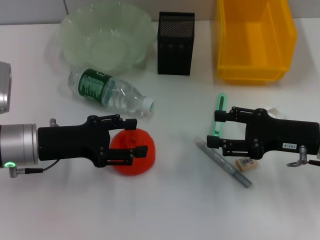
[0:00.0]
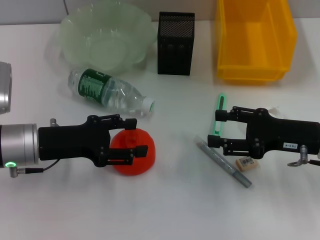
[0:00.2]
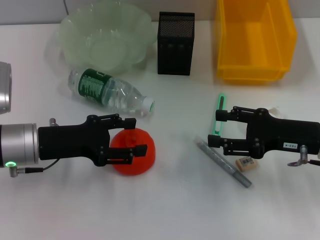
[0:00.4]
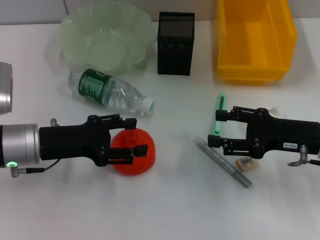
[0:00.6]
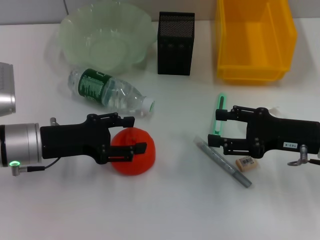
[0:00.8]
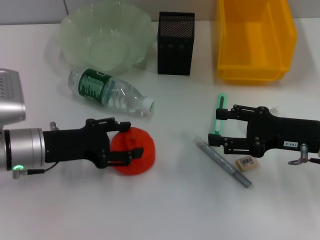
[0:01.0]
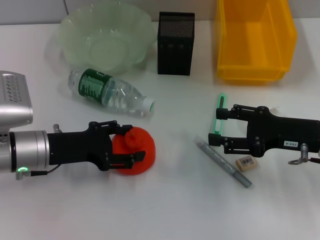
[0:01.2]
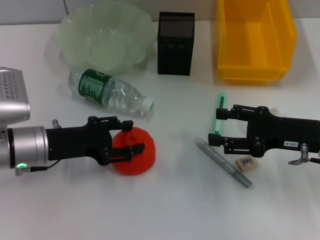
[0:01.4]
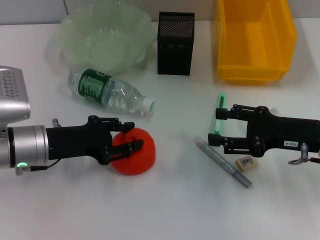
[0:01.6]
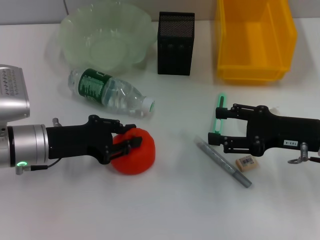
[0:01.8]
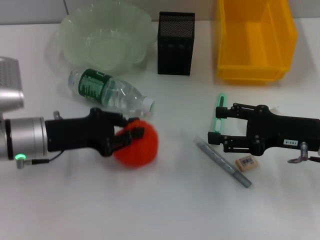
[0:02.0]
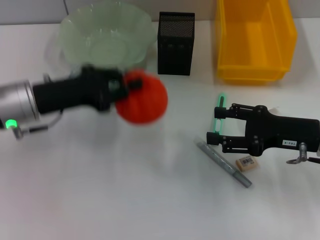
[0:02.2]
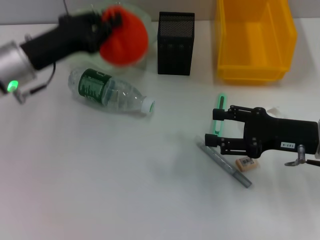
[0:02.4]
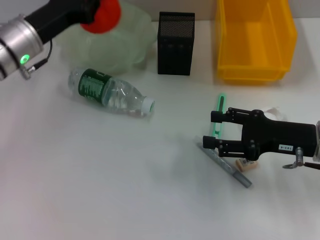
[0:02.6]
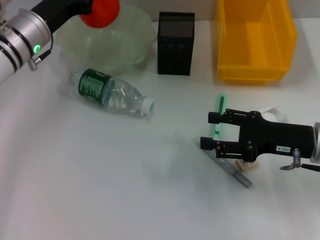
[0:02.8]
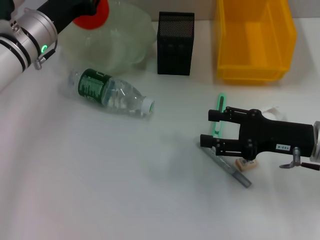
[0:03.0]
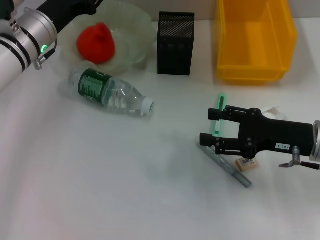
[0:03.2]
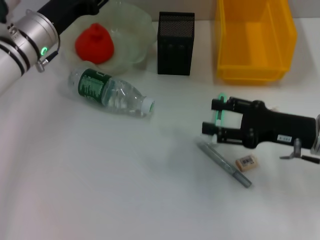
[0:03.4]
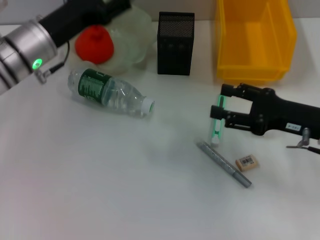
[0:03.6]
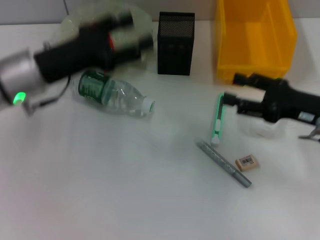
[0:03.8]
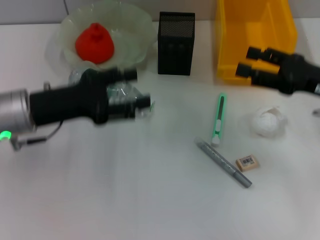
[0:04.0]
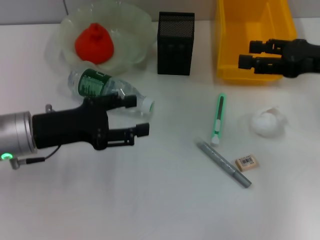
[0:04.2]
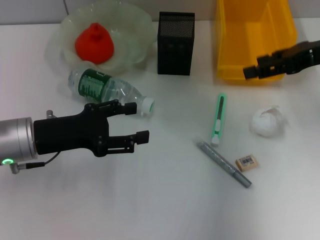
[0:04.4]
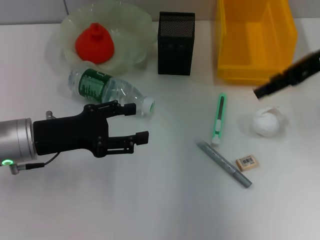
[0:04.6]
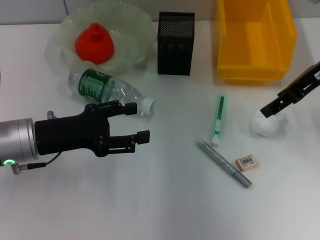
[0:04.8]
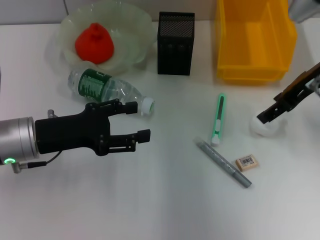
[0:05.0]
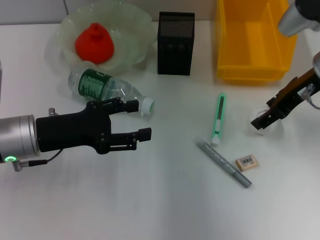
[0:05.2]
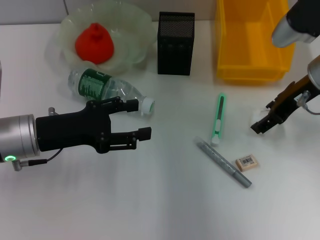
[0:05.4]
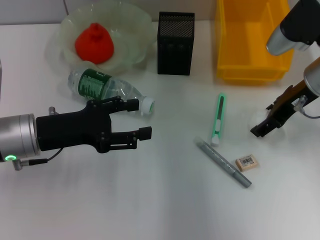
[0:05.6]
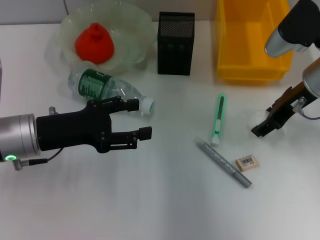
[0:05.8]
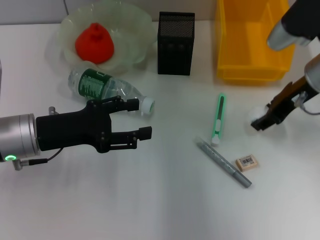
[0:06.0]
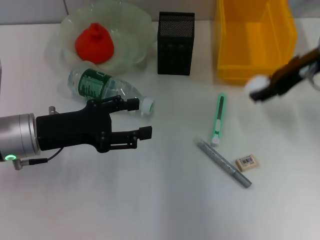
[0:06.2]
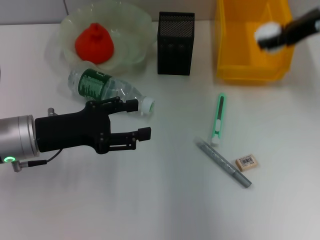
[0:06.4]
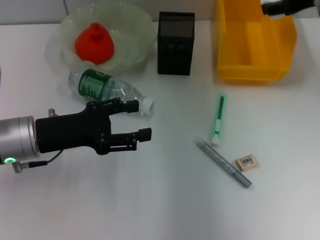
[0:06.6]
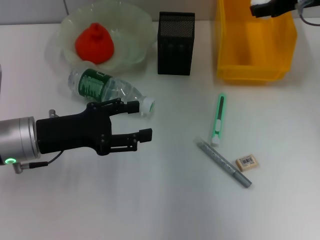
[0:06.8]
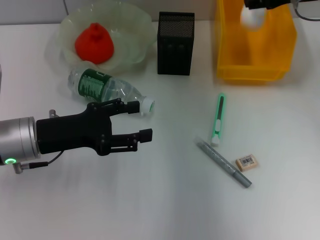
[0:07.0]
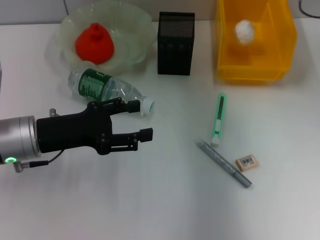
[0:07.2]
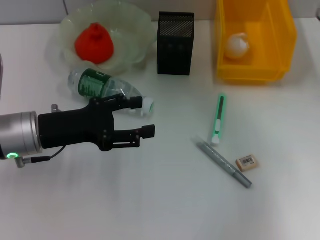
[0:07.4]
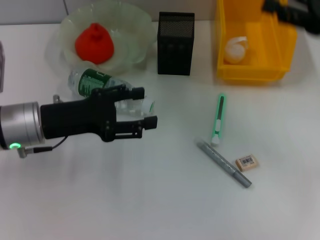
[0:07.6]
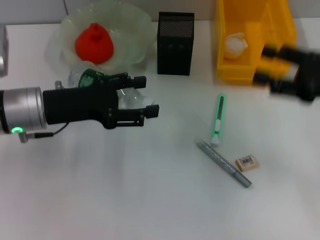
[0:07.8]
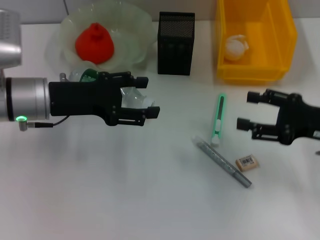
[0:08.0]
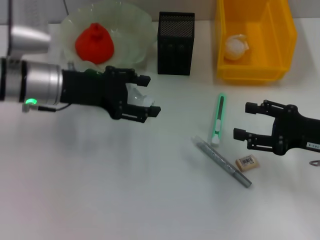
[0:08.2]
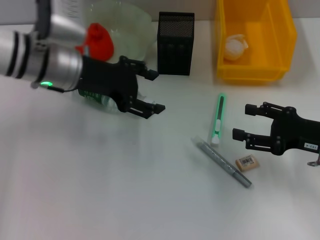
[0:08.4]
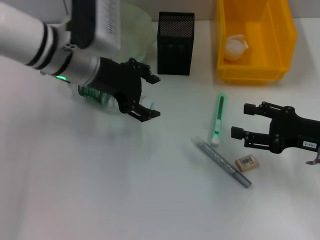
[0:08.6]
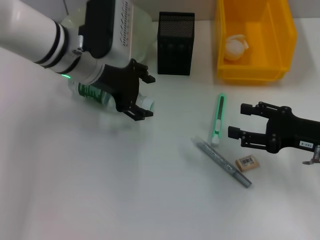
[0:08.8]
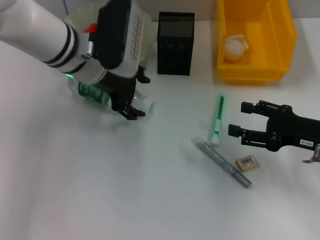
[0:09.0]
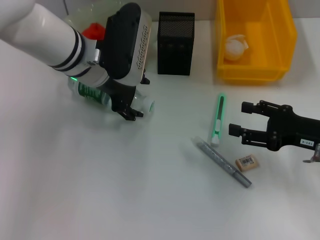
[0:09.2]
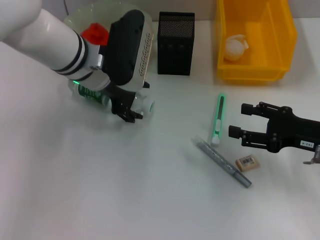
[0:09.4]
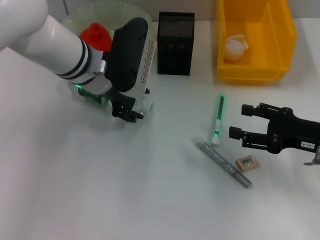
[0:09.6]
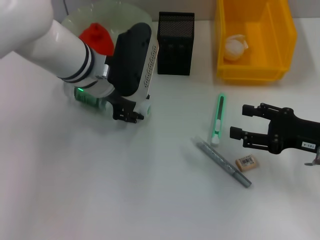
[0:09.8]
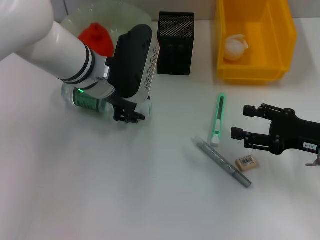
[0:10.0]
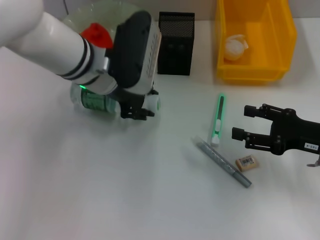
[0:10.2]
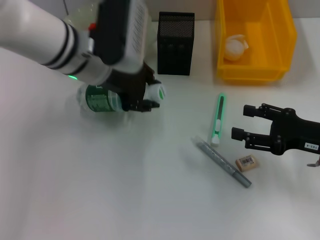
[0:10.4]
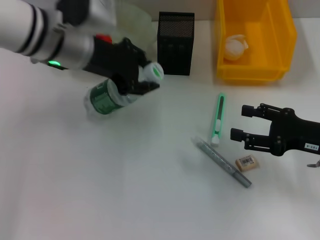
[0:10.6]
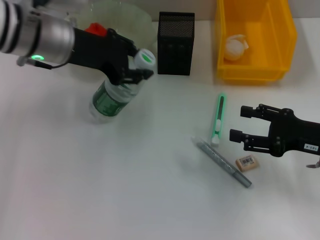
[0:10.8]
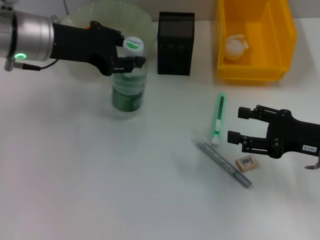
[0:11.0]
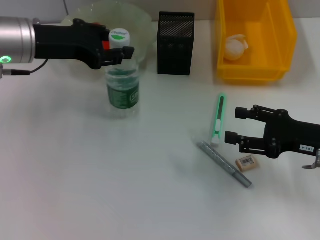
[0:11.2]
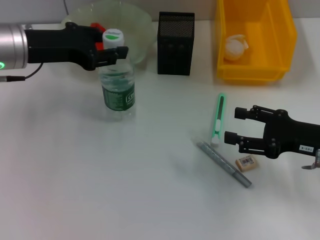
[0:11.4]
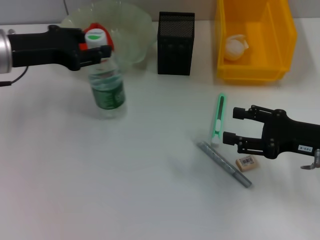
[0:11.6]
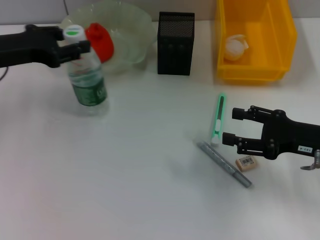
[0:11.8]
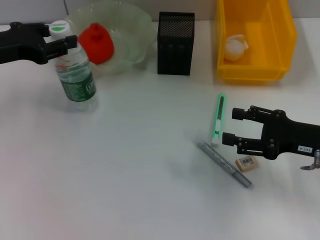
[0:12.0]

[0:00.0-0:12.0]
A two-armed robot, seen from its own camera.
Step, 0:00.0 to 0:01.6: Grab the orange with the left hand.
Step, 0:01.8 to 0:03.2: Place the orange into the fruit bowl with the left hand.
Step, 0:03.6 to 0:05.8: Grab the paper ball with the right hand.
Step, 0:06.0 to 0:07.2: Place the paper ball into the trash can with the right hand.
Step, 0:07.4 to 0:09.8: Grab the water bottle with the left hand.
0:00.0 to 0:01.6: The grippers move only a little.
0:01.6 to 0:03.0: The left gripper goes some 15 cm forward and upward, and closes up.
0:03.0 to 0:04.4: The left gripper travels backward by roughly 15 cm, and opens up; the right gripper heads upward and forward, covering some 15 cm.
0:04.4 to 0:06.0: The right gripper shifts approximately 10 cm to the left and downward.
0:06.0 to 0:07.6: The right gripper shifts roughly 10 cm to the right.
0:07.6 to 0:09.0: The left gripper goes about 15 cm to the right, forward and upward. Meanwhile the right gripper heads downward and backward, covering about 15 cm.
0:09.0 to 0:10.4: The left gripper closes.
0:10.4 to 0:12.0: The left gripper is displaced to the left by approximately 15 cm.

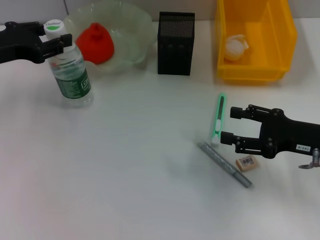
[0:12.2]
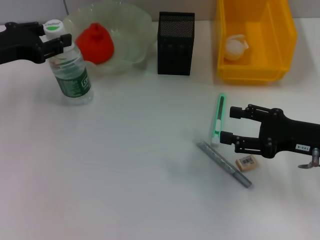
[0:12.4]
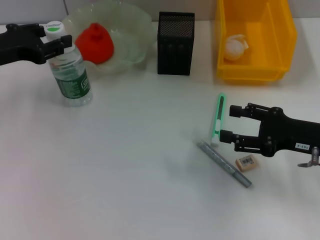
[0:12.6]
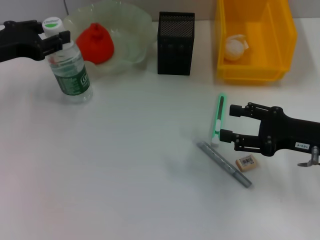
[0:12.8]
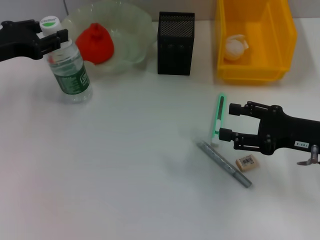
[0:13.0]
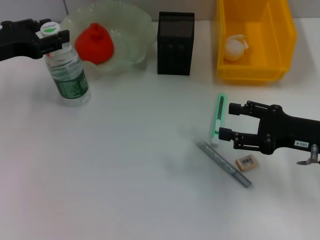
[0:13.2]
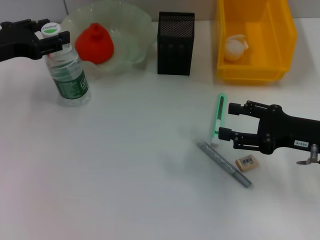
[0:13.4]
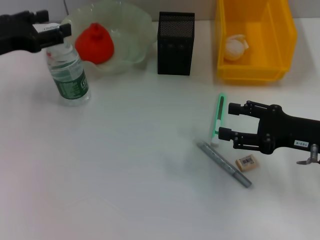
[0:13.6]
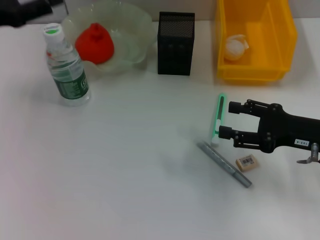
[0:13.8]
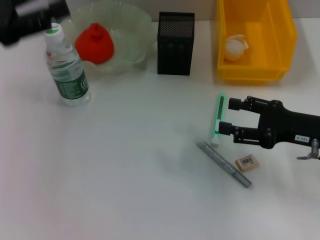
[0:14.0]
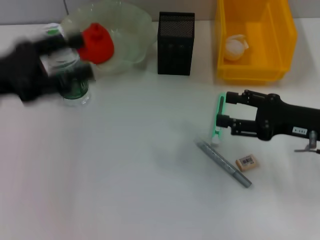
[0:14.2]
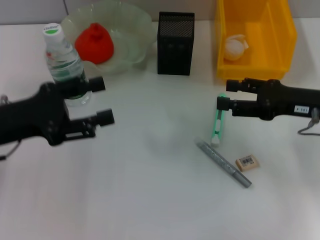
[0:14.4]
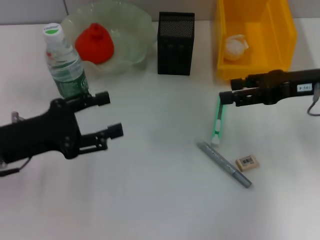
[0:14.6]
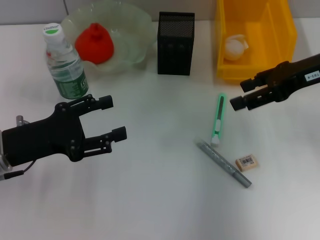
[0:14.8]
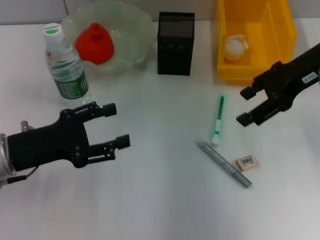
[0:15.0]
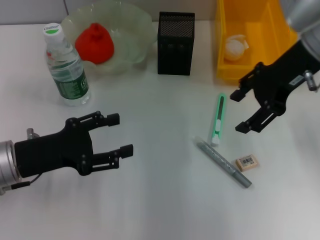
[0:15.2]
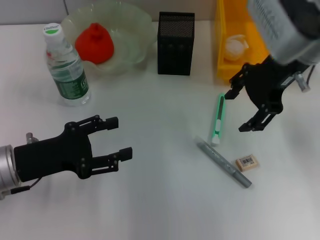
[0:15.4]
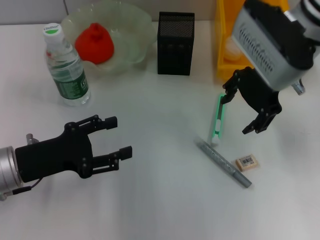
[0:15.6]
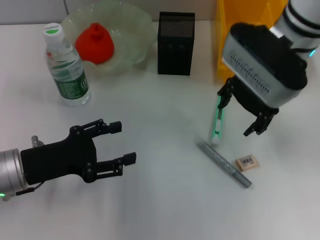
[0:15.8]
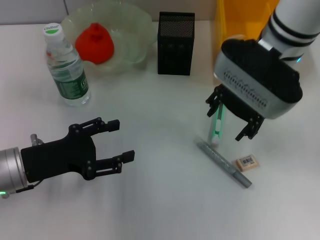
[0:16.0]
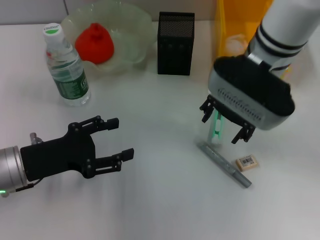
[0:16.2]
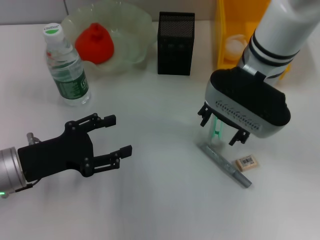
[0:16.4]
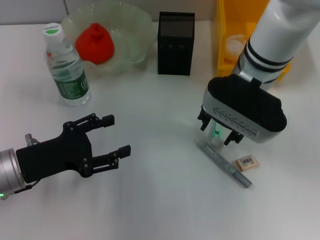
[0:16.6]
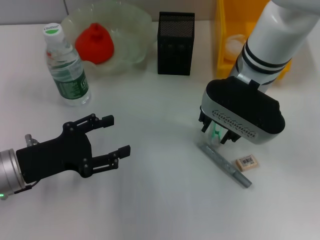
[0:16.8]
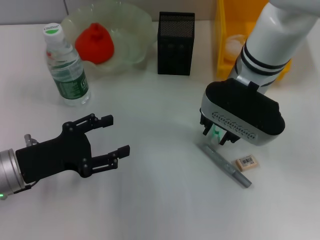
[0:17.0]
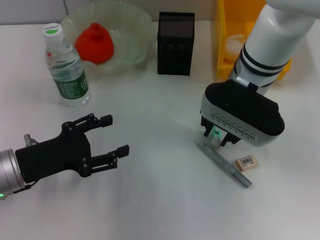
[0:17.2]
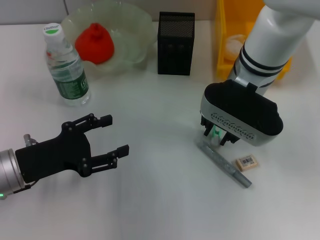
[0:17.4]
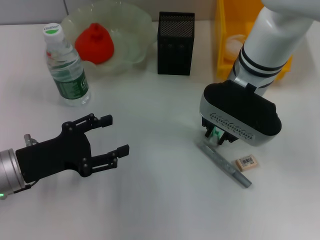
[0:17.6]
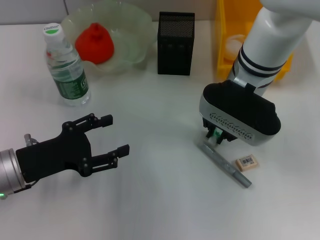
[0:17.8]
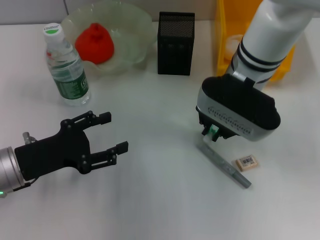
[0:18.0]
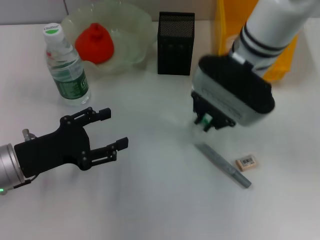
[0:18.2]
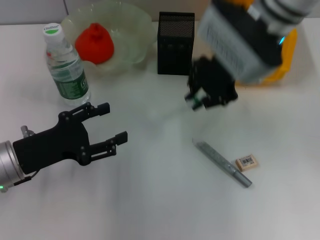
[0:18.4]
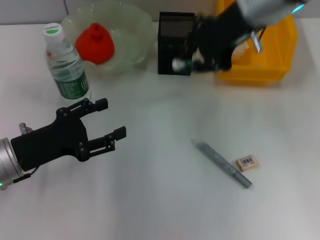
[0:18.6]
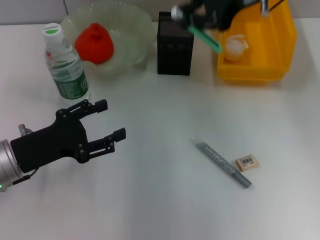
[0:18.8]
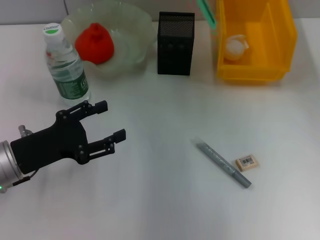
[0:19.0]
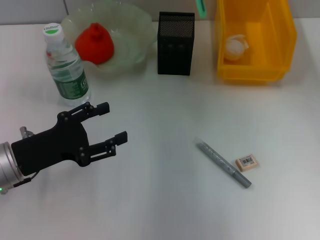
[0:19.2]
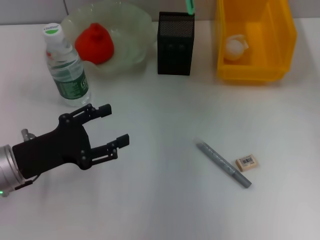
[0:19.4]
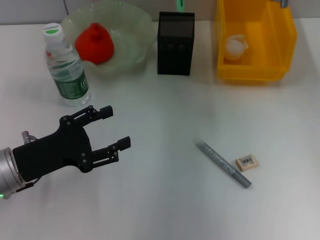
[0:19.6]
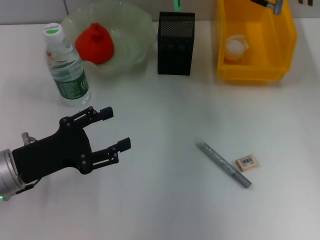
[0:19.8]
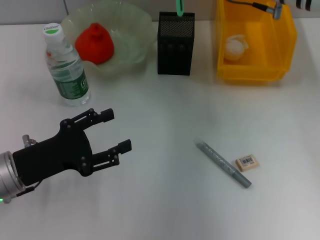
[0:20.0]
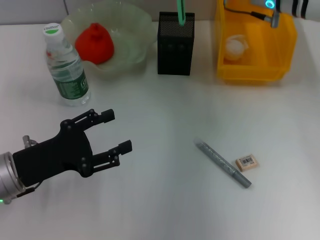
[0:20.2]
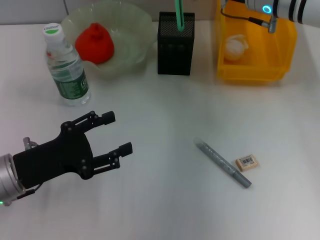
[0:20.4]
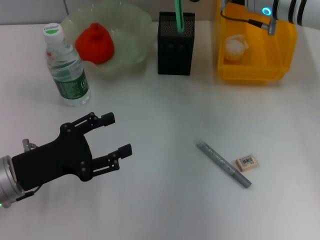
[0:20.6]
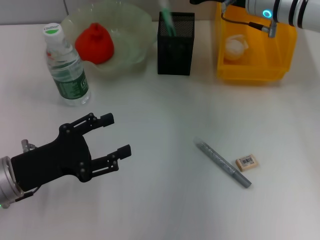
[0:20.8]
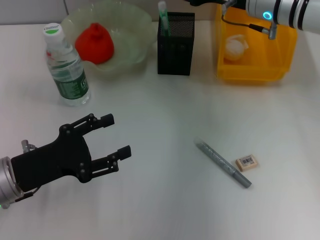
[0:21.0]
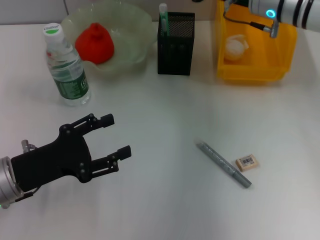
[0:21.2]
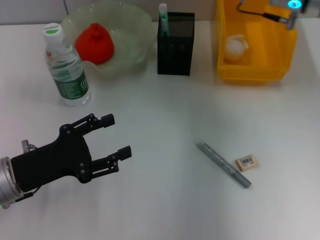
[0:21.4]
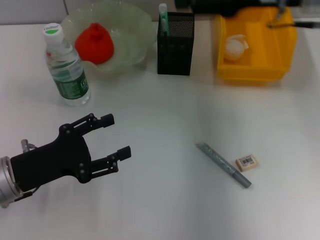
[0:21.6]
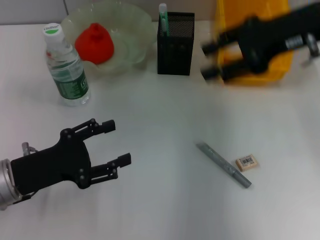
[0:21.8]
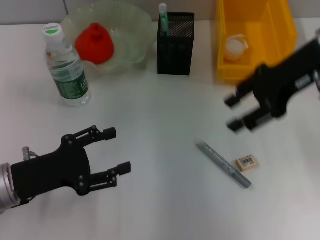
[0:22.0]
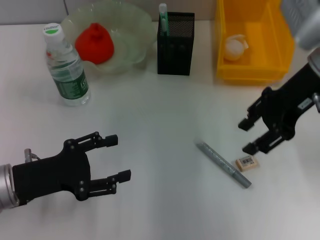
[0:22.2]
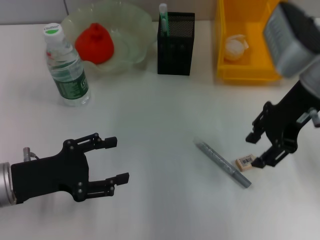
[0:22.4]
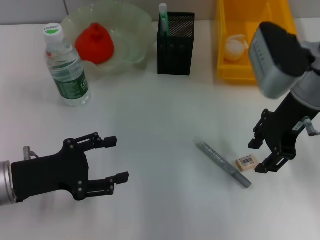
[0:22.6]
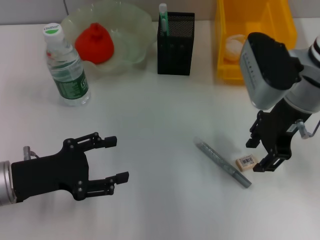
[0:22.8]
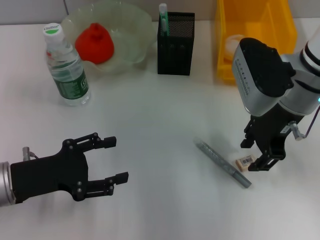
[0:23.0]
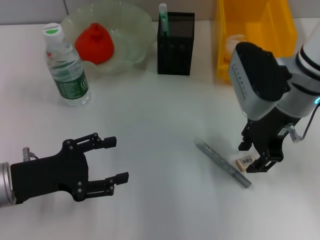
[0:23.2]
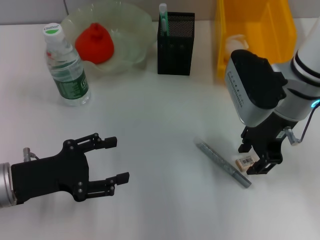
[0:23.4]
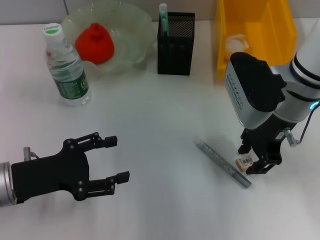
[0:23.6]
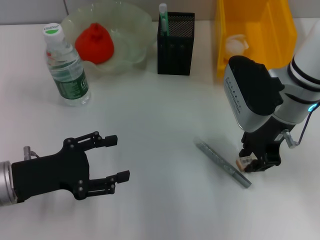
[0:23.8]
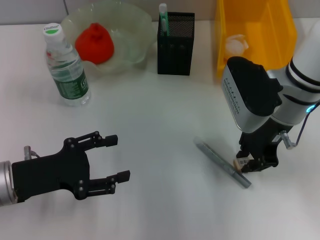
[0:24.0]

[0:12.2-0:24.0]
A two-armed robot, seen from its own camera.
Step, 0:14.0 to 0:17.8: Grab the blue utility knife with the right hand.
Step, 0:18.0 to 0:21.0: Place the blue utility knife into the pen holder with the right hand.
Step, 0:21.2 to 0:23.8: Grab the eraser with the right hand.
0:12.2 to 0:13.6: The left gripper opens up.
0:13.6 to 0:15.2: The right gripper moves upward, forward and to the left, about 20 cm, while the left gripper travels backward and downward by roughly 15 cm.
0:15.2 to 0:16.6: The right gripper heads to the left and downward, covering about 10 cm.
0:16.6 to 0:18.2: The right gripper closes.
0:18.2 to 0:19.6: The right gripper is displaced to the right and forward by about 10 cm.
0:19.6 to 0:21.0: The right gripper shifts about 5 cm downward, and opens its fingers.
0:21.0 to 0:22.6: The right gripper is displaced backward by about 10 cm.
0:22.6 to 0:24.0: There are only small adjustments of the grippers.
